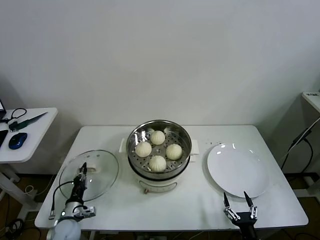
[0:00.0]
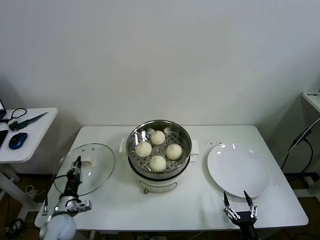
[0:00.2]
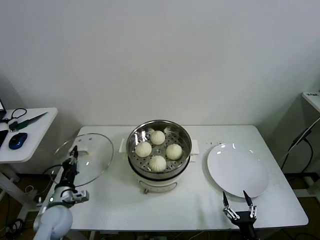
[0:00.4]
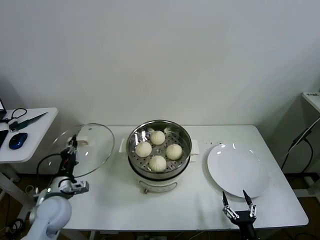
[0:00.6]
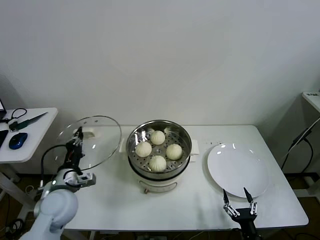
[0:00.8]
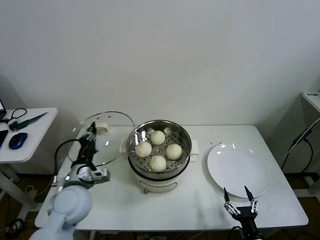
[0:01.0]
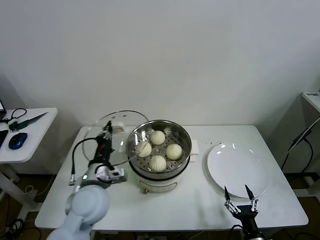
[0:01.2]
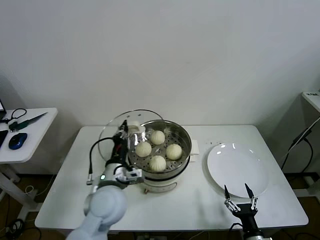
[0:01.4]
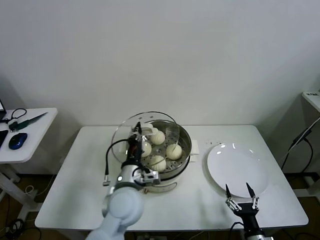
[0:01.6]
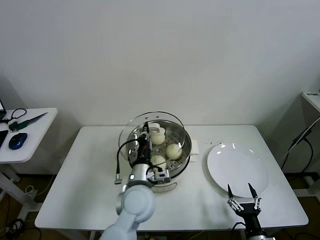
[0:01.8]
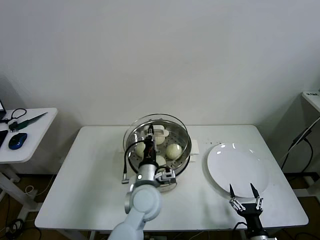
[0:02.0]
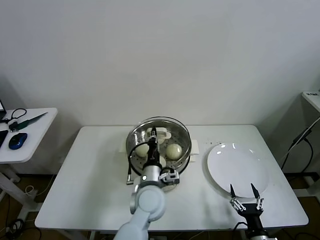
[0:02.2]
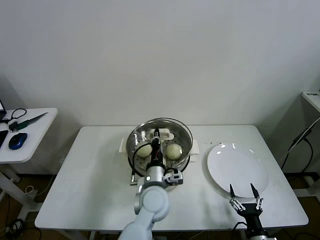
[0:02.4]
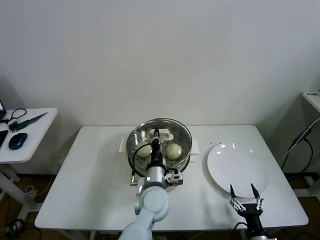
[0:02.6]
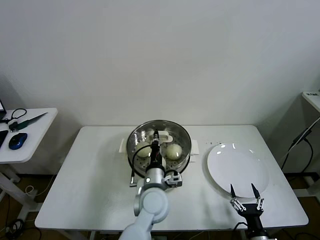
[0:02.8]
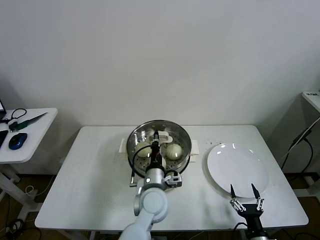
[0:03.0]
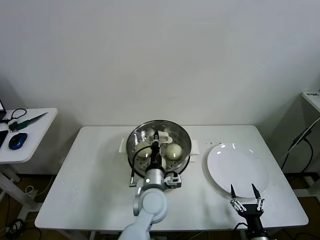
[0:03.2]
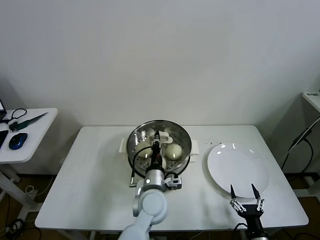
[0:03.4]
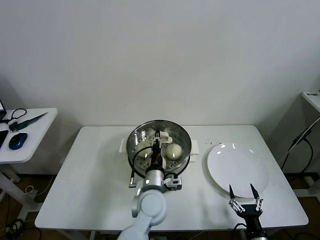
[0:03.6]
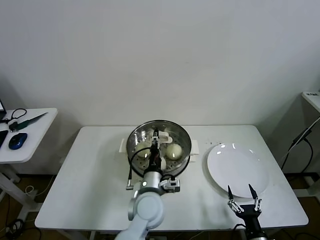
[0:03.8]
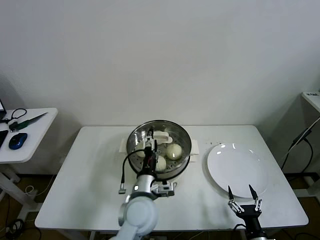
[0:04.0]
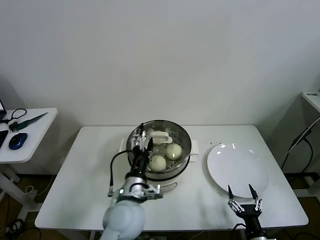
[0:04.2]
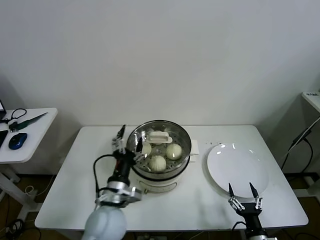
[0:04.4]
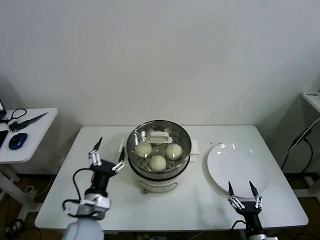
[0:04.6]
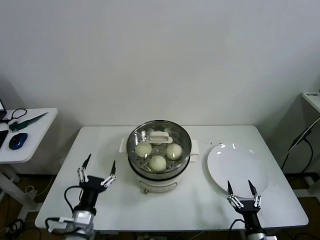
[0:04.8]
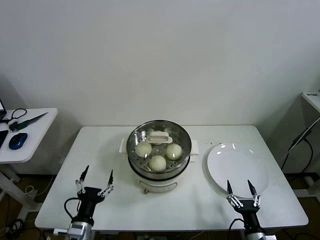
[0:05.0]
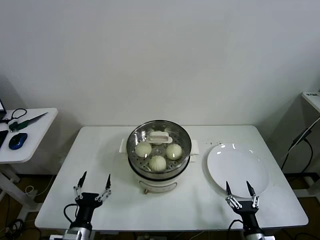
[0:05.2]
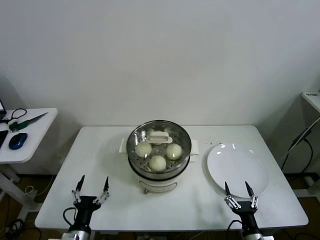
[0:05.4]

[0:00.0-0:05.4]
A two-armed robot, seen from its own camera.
Task of the whole recording: take steamed baozi put them in steamer then cover it.
Step, 0:00.0 to 0:03.4: Place the pot lid on the steamer with left gripper.
0:00.0 to 0:01.4: The left gripper moves upward and to the right, some 30 cm.
0:01.4 to 0:02.8: The left gripper shifts about 15 cm to the right and downward.
0:02.8 to 0:04.0: The left gripper opens.
0:04.0 to 0:05.4: The left gripper heads to the left, backward and downward, covering approximately 25 cm.

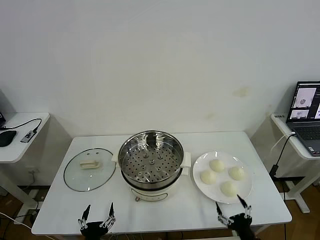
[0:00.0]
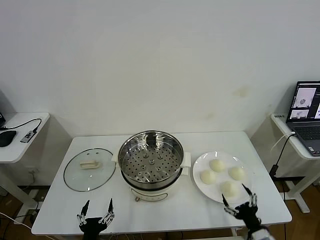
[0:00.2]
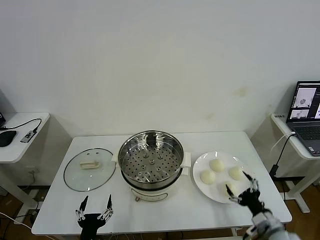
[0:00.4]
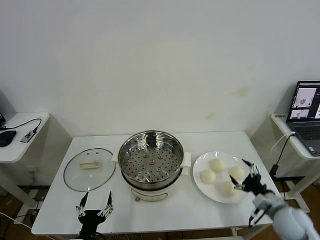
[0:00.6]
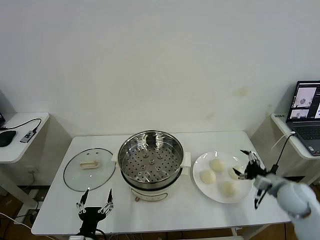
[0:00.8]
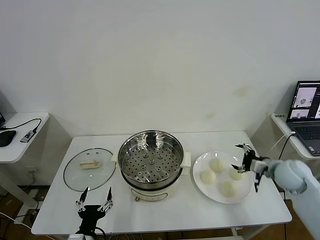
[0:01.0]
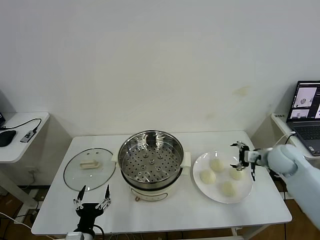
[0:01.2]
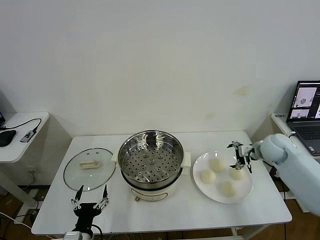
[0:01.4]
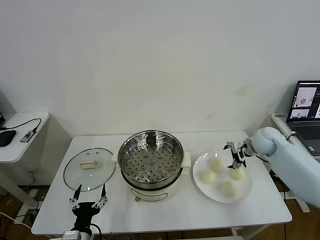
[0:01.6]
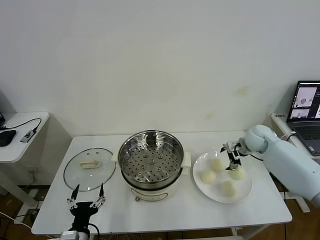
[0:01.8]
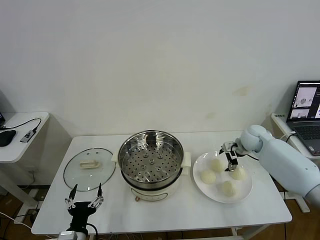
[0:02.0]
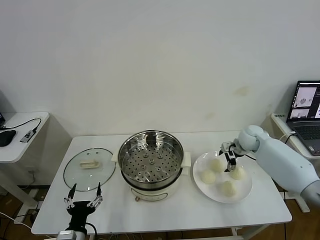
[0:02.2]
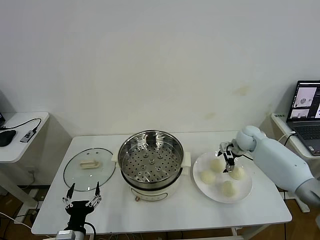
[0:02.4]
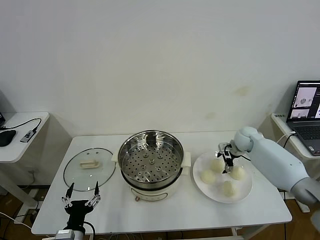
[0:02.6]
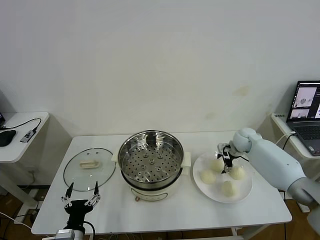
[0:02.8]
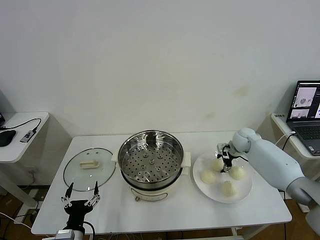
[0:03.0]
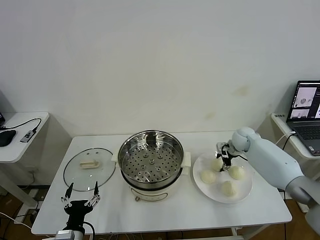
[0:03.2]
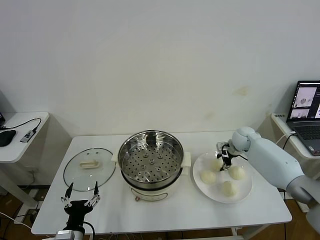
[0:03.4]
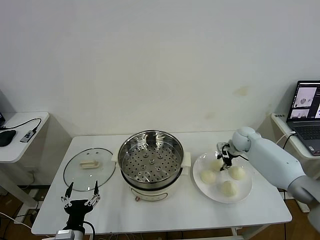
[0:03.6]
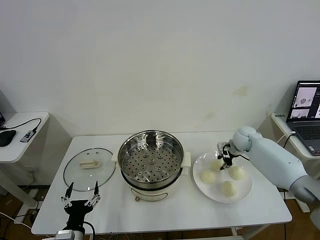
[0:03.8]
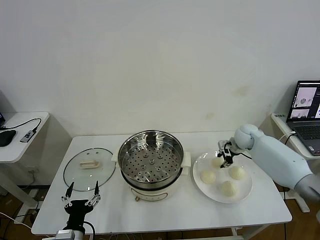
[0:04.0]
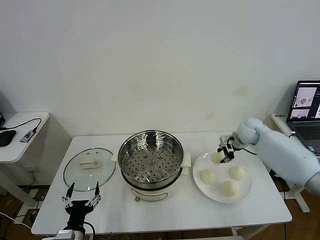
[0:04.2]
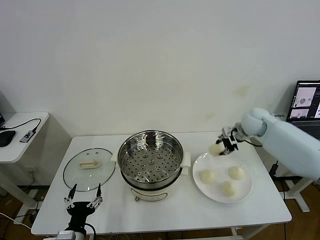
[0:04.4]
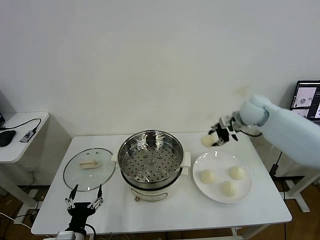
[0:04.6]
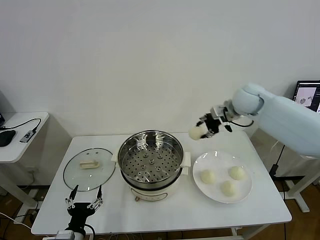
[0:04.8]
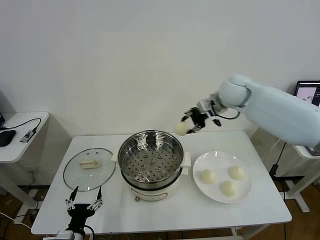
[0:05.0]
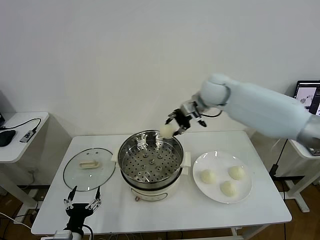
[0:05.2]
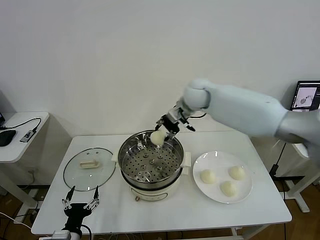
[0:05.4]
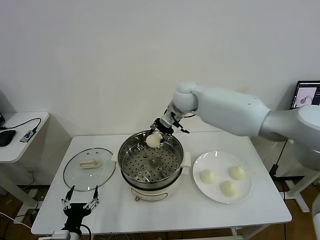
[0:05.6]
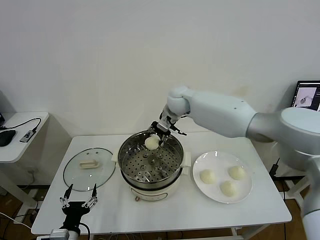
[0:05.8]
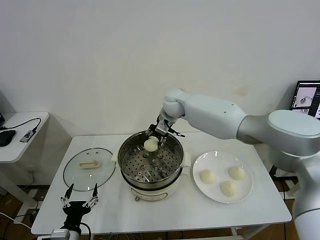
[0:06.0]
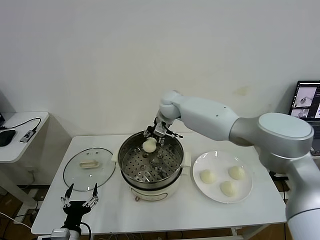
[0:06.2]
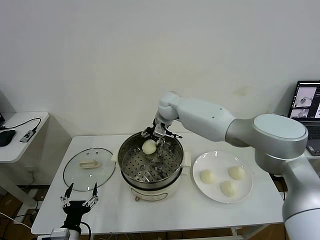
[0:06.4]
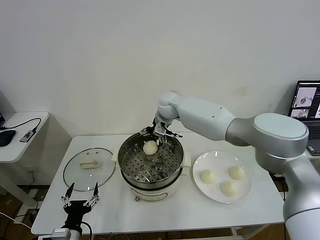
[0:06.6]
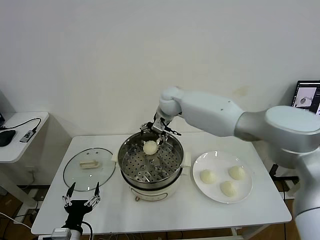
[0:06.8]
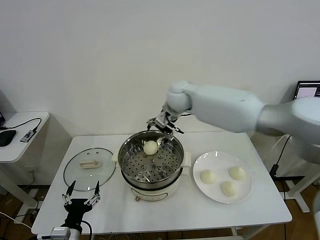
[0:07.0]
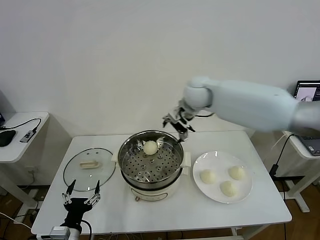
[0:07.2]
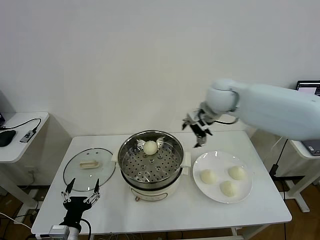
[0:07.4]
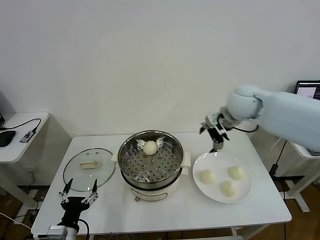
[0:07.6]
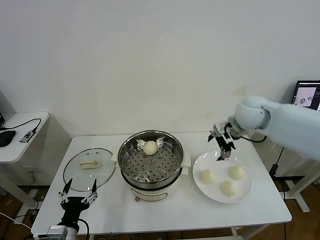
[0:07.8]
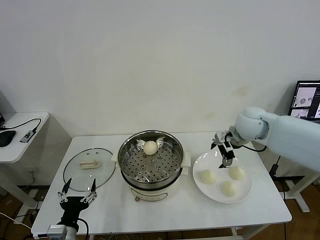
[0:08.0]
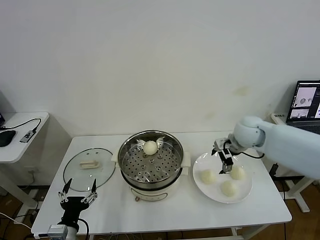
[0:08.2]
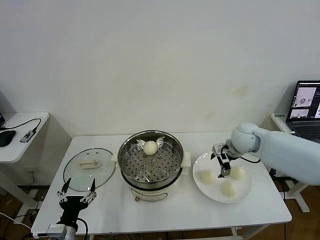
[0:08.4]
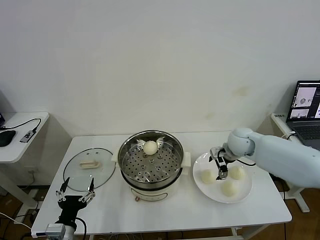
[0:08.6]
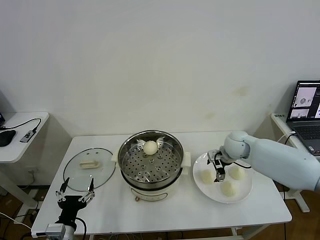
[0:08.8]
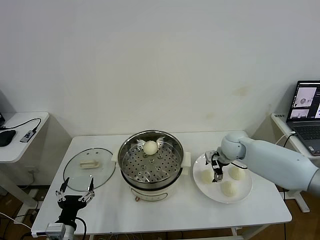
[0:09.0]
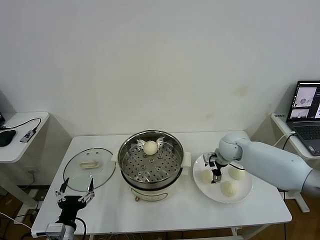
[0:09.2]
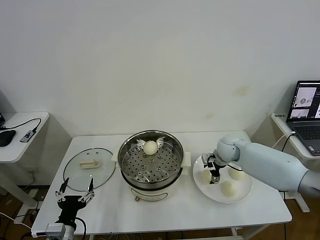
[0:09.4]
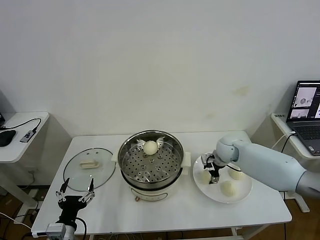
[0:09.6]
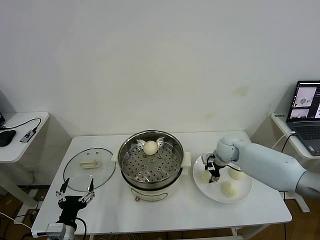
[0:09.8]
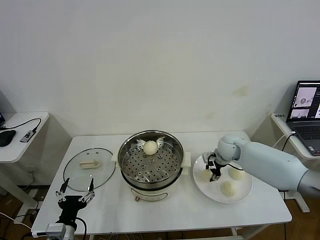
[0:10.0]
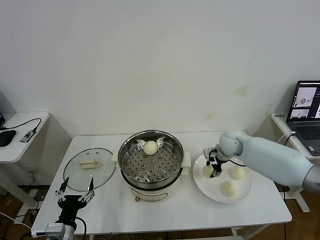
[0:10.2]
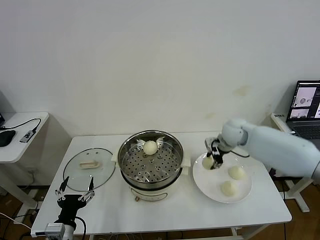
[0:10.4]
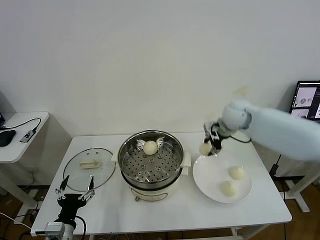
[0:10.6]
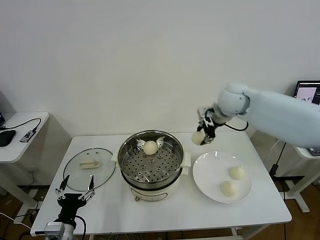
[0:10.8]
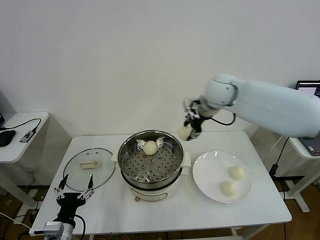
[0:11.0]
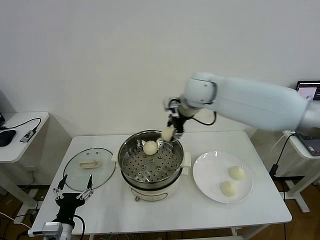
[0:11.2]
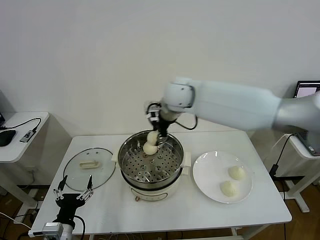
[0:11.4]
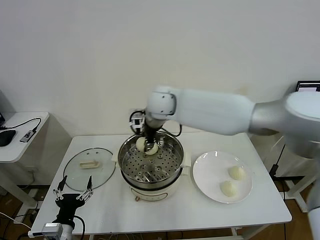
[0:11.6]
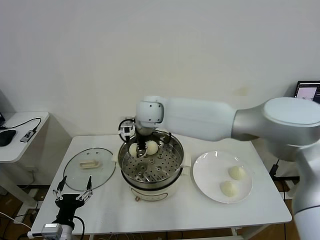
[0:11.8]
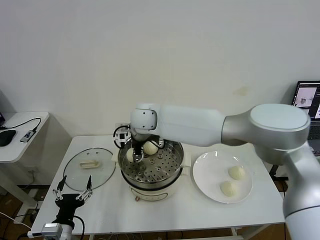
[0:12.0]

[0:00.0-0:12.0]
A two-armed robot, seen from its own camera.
Task of the whole recording: take steamed baozi put them in steamer then cover it.
Step, 0:00.0 to 0:03.8: Grasp the baozi in the plate with right gripper.
Step, 0:04.0 to 0:06.6: Place the baozi on the steamer with right gripper.
Step, 0:06.8 to 0:10.0: Grasp the baozi in the plate with right gripper.
0:01.6 to 0:03.0: The right gripper goes some 5 cm downward, and closes up.
0:03.0 to 0:04.4: The right gripper heads upward, covering some 15 cm, and closes its fingers.
0:04.4 to 0:06.0: The right gripper travels to the left by some 30 cm.
0:06.0 to 0:07.6: The right gripper shifts about 25 cm to the right and backward, and opens up.
0:07.6 to 0:09.0: The right gripper heads downward, covering roughly 20 cm.
0:09.0 to 0:10.4: The right gripper heads upward, covering about 10 cm, and closes its fingers.
0:10.4 to 0:12.0: The right gripper is displaced to the left by about 30 cm.

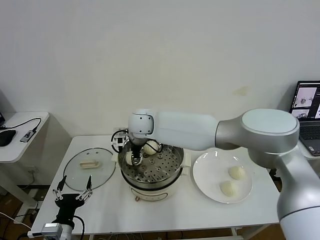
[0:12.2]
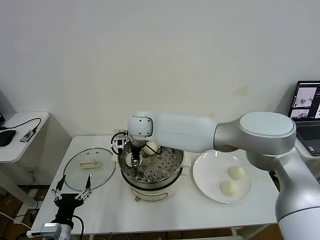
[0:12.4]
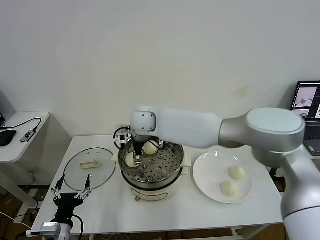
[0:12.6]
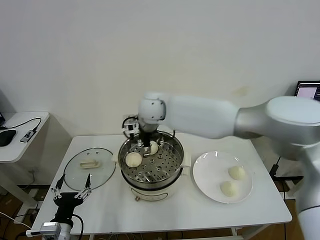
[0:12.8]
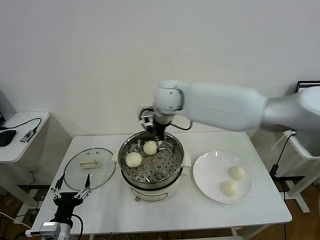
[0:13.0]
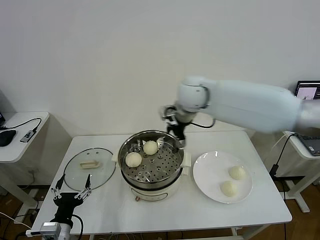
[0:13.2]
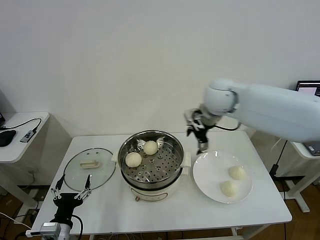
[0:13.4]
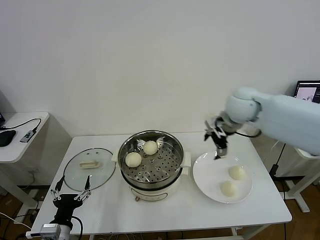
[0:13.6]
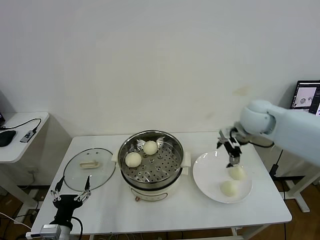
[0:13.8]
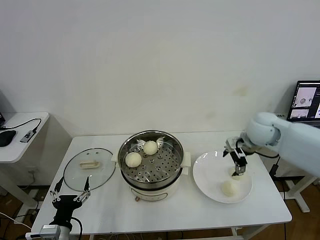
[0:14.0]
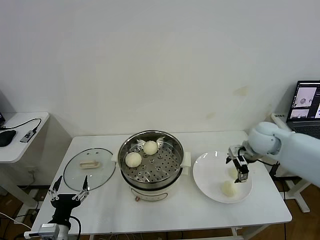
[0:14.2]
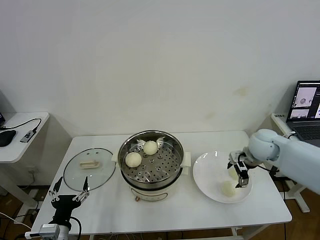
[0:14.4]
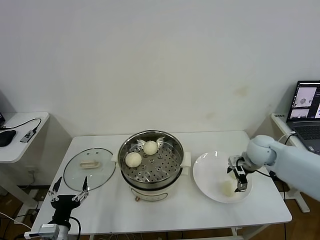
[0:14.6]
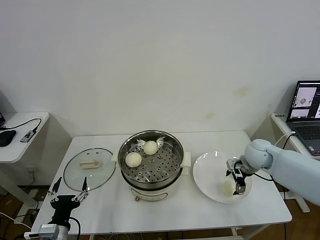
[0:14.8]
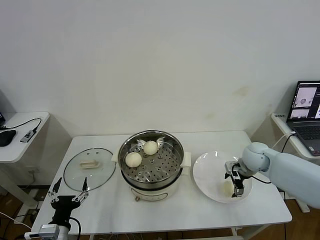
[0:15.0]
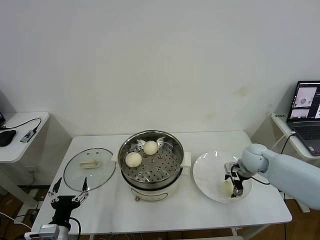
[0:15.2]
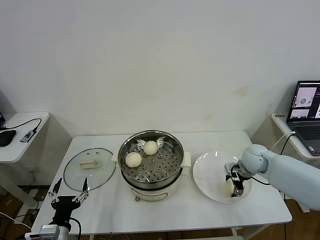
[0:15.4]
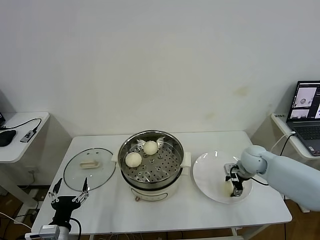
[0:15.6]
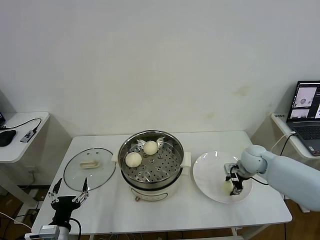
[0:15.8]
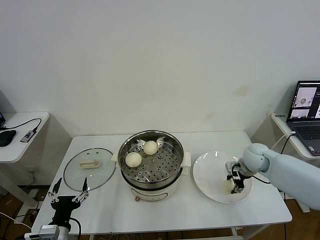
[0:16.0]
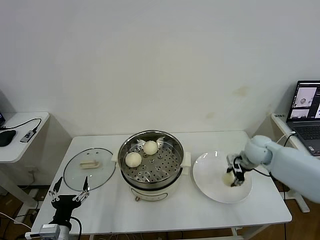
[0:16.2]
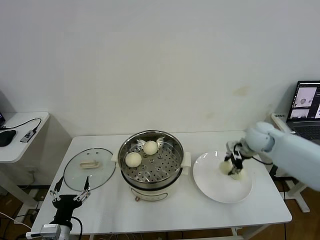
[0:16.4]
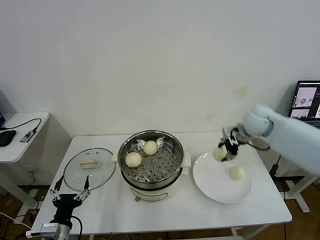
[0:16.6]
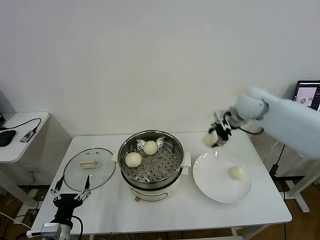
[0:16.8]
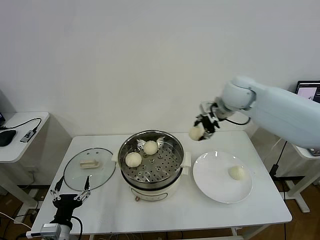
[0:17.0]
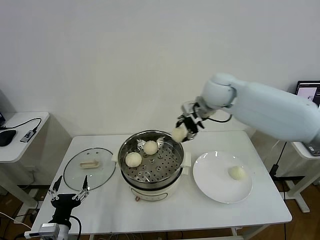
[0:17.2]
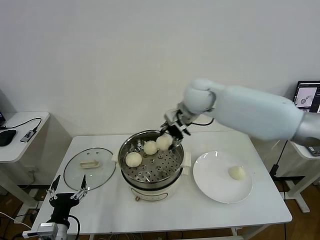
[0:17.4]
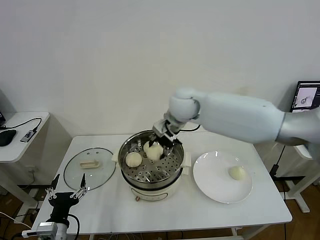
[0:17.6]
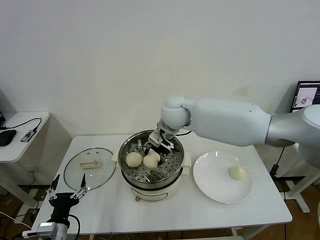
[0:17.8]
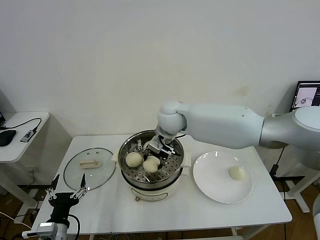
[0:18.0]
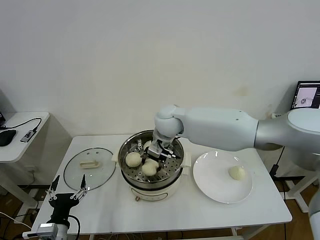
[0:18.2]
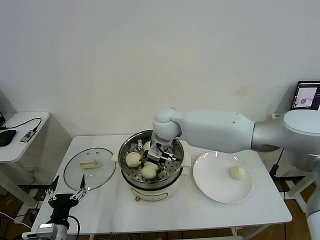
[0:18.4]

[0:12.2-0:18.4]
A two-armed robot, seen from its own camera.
Task of the whole recording: take steamed baozi put them in steamer then cover it.
Step, 0:12.8 to 0:16.0: Grasp the baozi in the plate with right gripper.
0:12.2 to 0:13.8: The right gripper travels to the right by approximately 35 cm, and opens.
0:13.8 to 0:15.4: The right gripper travels downward by approximately 15 cm.
0:15.4 to 0:16.8: The right gripper heads upward, covering roughly 20 cm, and closes its fingers.
0:16.8 to 0:18.4: The right gripper goes roughly 25 cm to the left.
